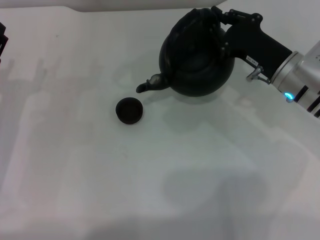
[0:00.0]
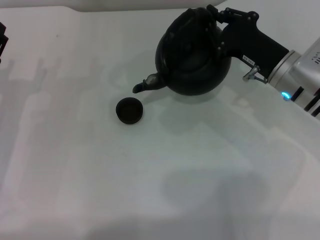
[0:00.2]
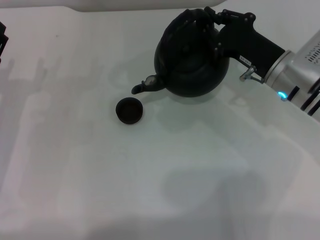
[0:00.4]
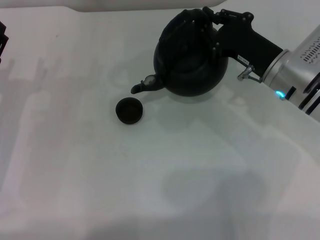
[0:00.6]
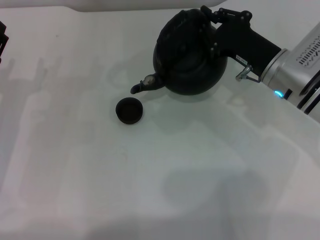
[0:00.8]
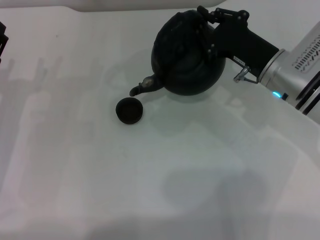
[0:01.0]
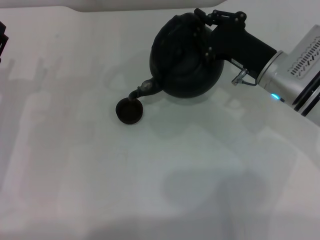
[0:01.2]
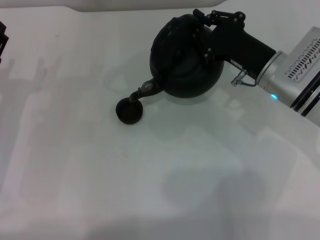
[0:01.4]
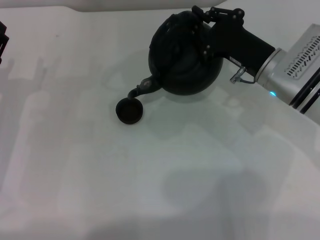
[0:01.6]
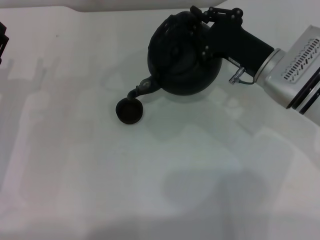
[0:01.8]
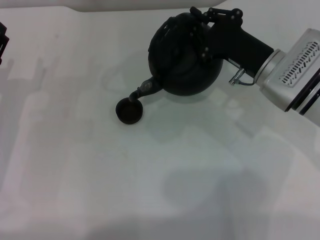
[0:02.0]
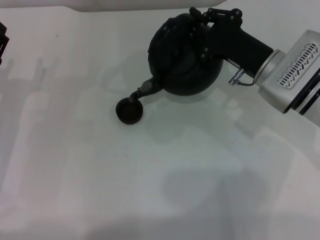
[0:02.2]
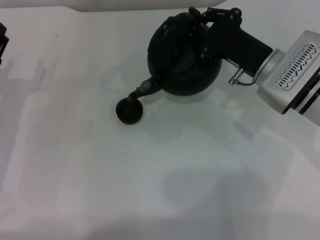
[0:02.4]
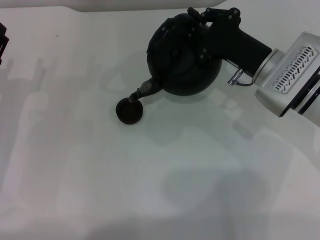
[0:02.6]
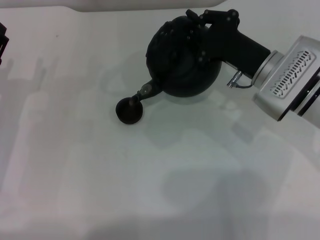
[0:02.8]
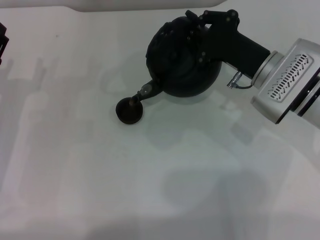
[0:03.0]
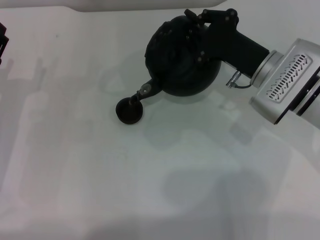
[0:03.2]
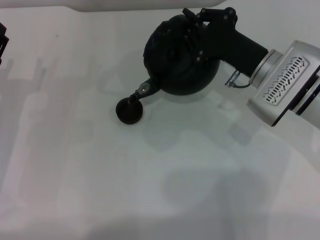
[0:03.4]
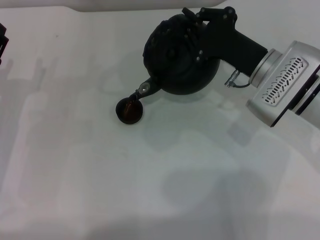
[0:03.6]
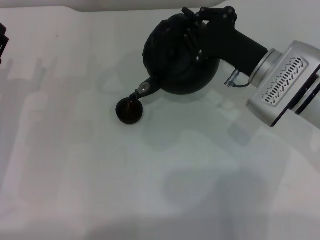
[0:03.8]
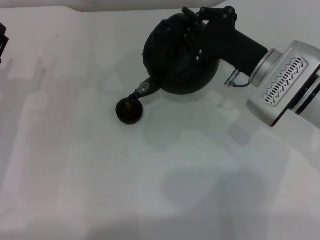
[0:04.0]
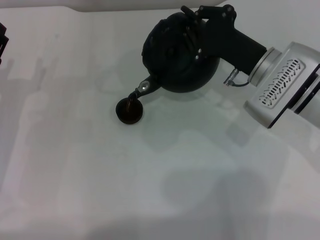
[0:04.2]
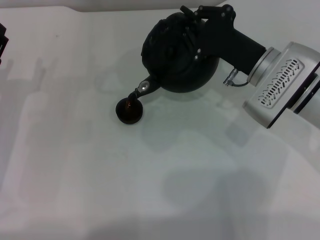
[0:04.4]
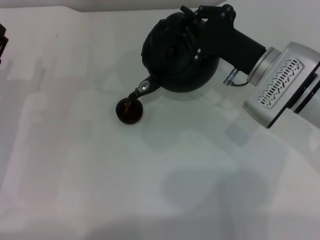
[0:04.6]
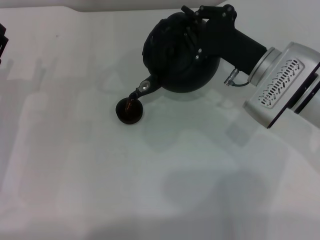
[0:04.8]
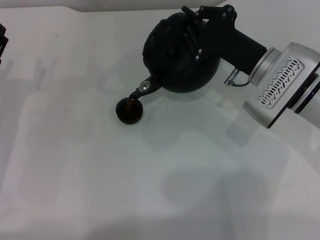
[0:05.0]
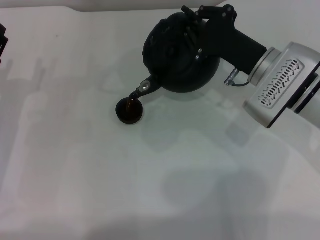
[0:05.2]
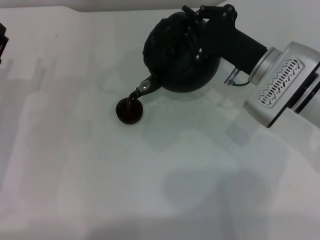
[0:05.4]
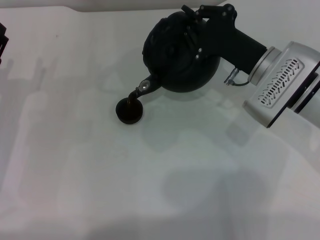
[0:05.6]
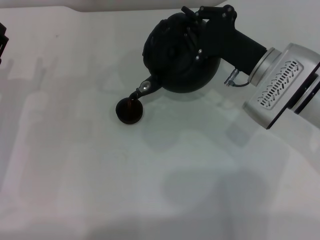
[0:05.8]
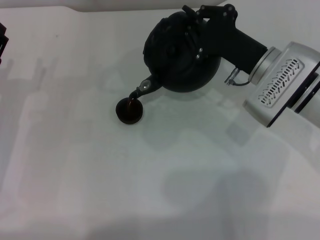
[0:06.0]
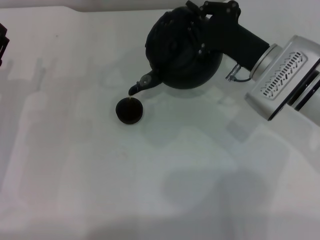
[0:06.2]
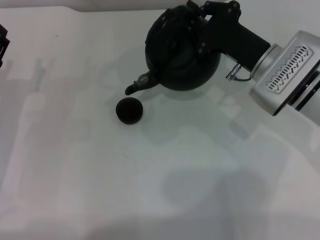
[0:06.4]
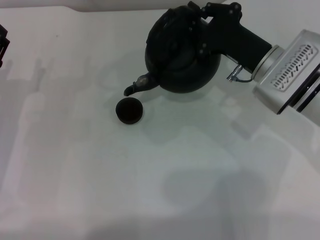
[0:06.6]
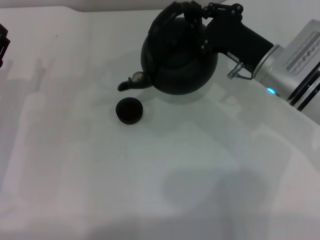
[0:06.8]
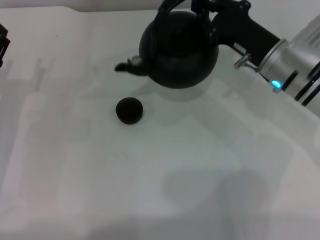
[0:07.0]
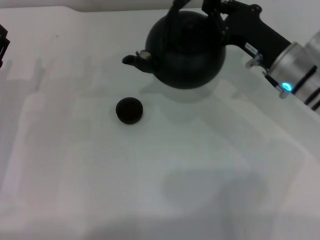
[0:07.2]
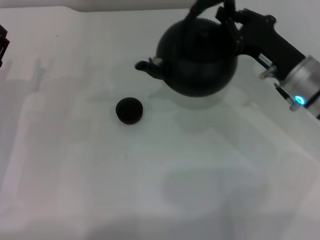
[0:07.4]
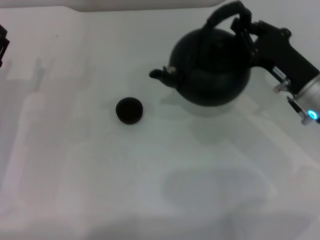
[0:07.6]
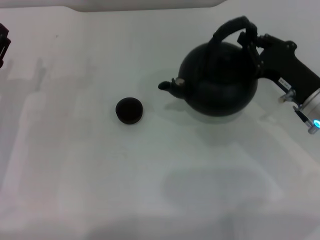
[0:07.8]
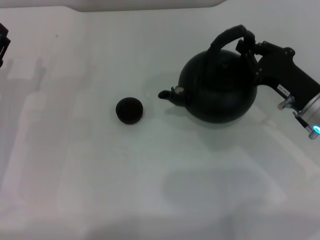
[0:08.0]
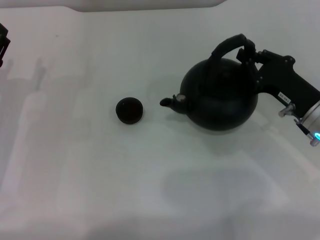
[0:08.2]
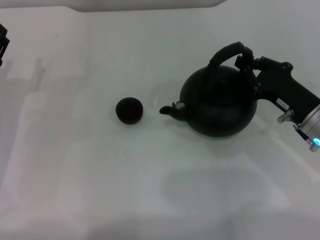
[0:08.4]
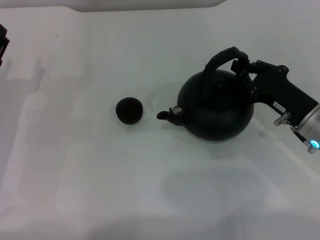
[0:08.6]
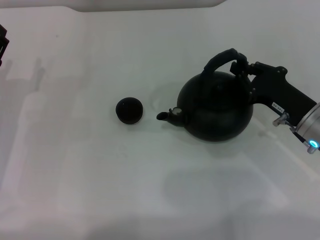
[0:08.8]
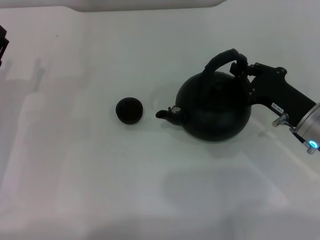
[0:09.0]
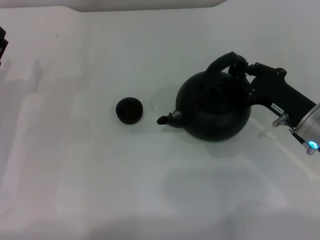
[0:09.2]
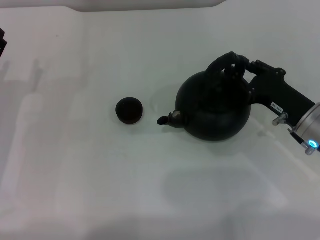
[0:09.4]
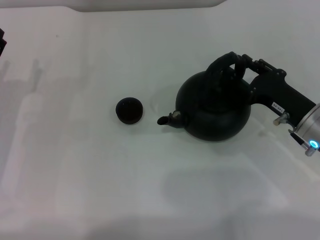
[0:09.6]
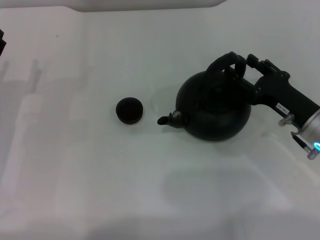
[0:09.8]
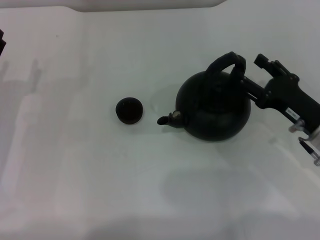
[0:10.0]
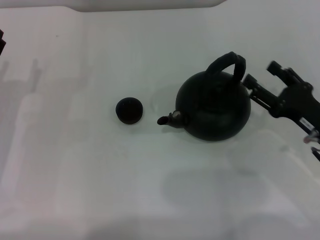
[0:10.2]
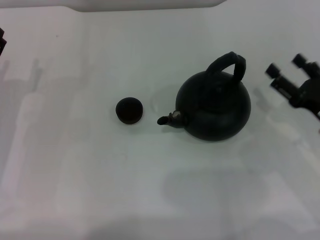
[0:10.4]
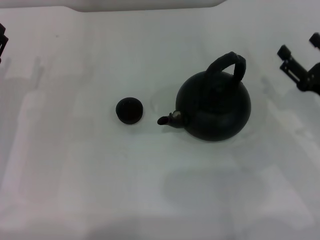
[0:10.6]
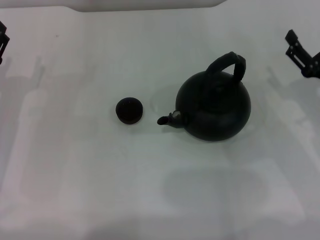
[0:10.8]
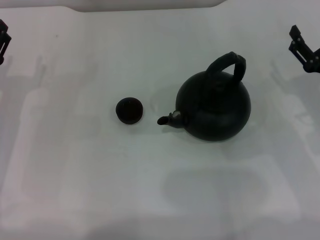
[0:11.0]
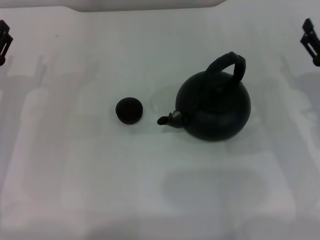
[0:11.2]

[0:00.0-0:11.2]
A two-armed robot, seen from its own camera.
Task of the whole recording: Grasp the handle of the teapot with one hand and pour tea into the teacup.
Step, 0:00.0 to 0:06.6: Pour tea into the teacup with the right gripper.
Step, 0:06.8 to 0:10.4: Put down the teapot with the right gripper.
0:00.0 to 0:01.6: The grippers move only a little.
0:01.6 to 0:04.8: The grippers stay close to where they were, moving slightly.
0:04.8 to 0:06.4: The grippers move only a little.
0:06.4 to 0:08.0: The right gripper travels to the right and backward by approximately 10 cm.
0:08.0 to 0:09.6: The grippers stay close to where they were, moving slightly.
0:09.6 to 0:11.2: The right gripper shifts by approximately 5 cm, and opens up.

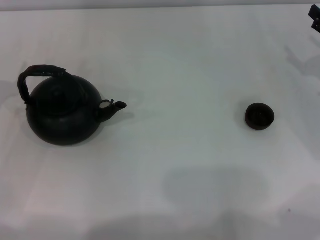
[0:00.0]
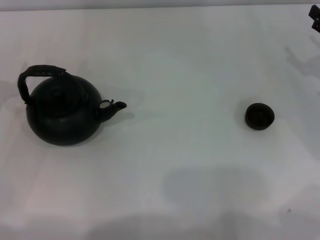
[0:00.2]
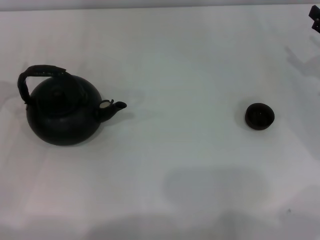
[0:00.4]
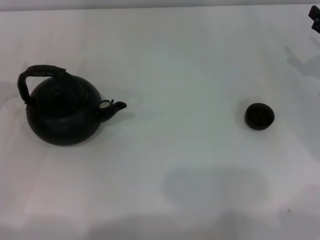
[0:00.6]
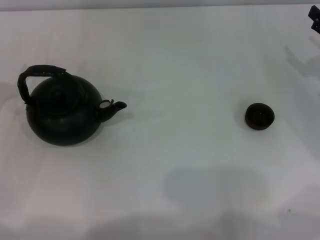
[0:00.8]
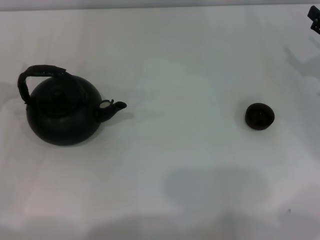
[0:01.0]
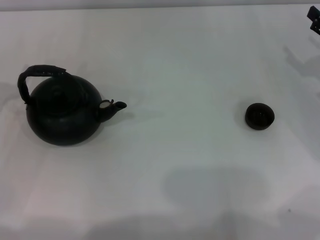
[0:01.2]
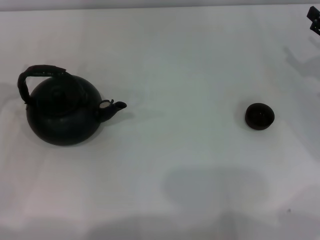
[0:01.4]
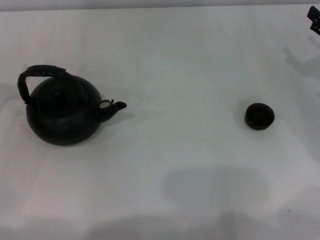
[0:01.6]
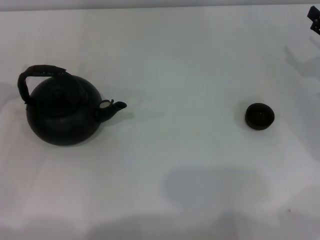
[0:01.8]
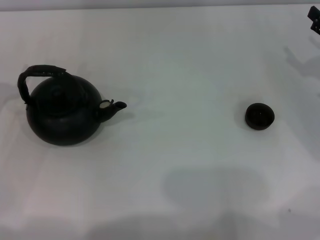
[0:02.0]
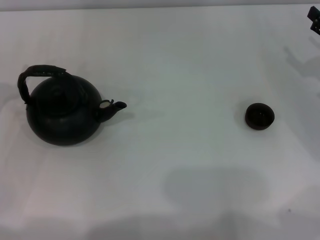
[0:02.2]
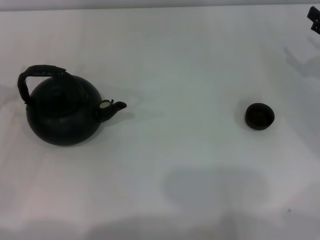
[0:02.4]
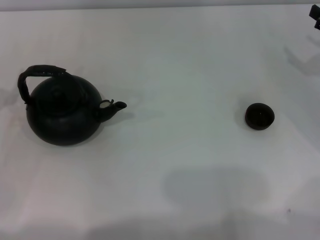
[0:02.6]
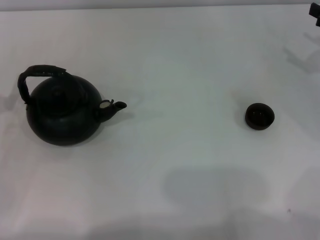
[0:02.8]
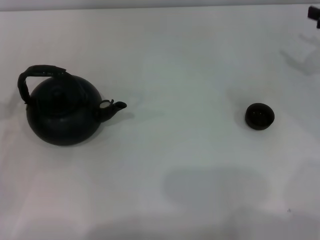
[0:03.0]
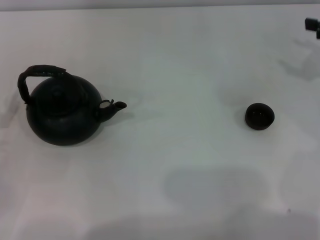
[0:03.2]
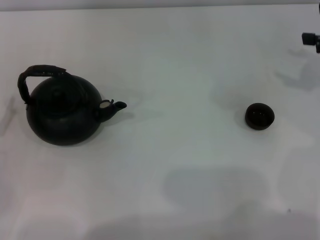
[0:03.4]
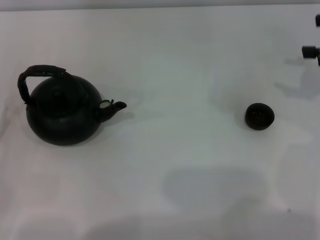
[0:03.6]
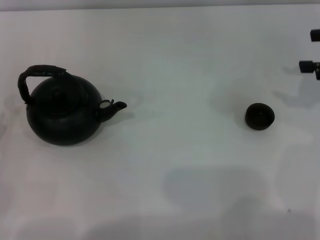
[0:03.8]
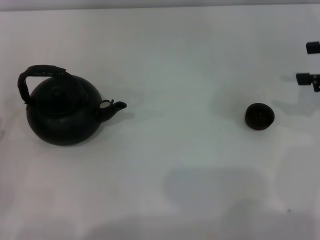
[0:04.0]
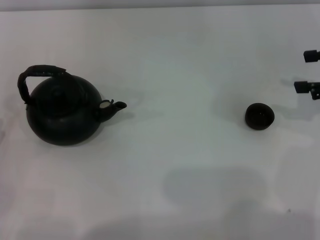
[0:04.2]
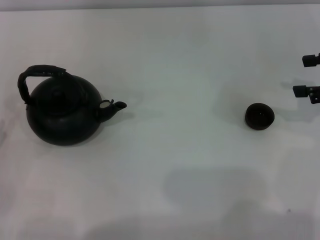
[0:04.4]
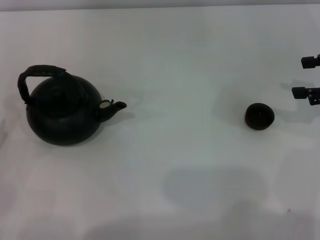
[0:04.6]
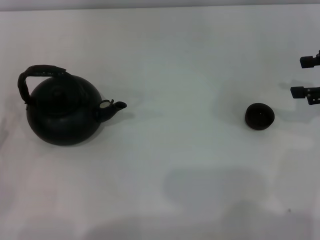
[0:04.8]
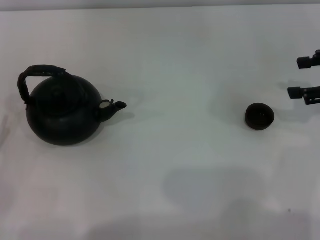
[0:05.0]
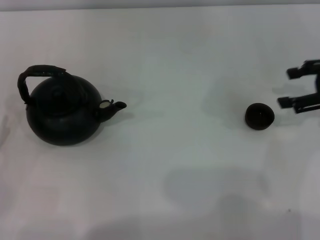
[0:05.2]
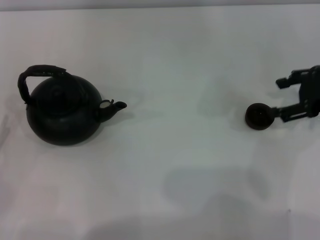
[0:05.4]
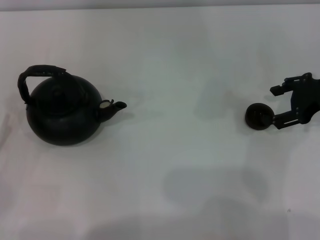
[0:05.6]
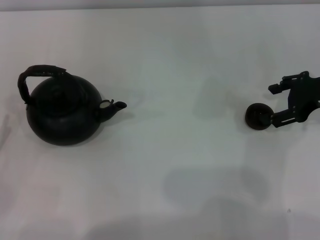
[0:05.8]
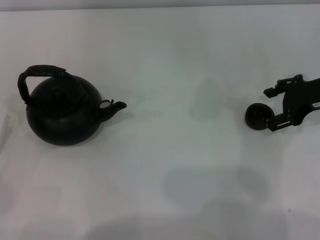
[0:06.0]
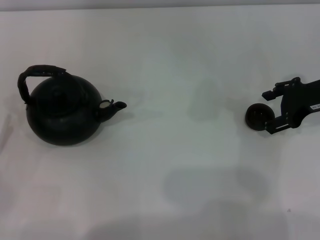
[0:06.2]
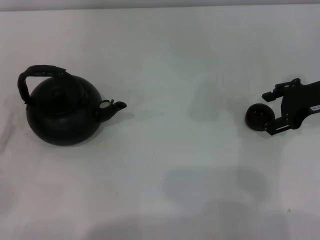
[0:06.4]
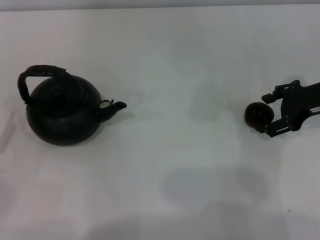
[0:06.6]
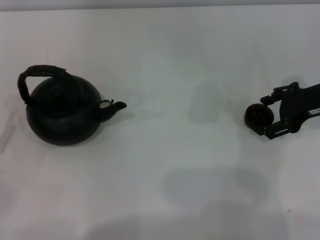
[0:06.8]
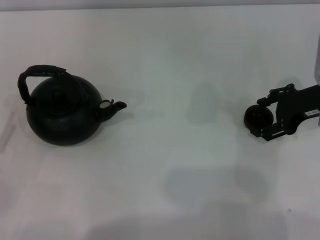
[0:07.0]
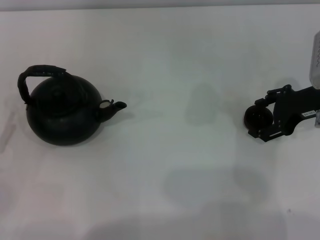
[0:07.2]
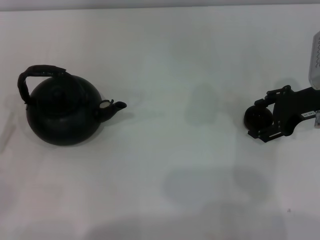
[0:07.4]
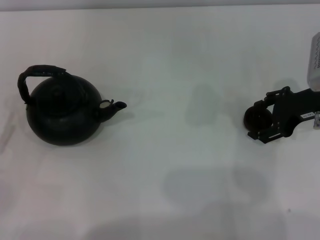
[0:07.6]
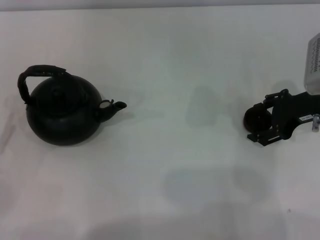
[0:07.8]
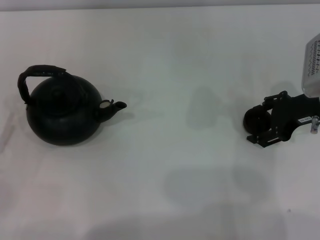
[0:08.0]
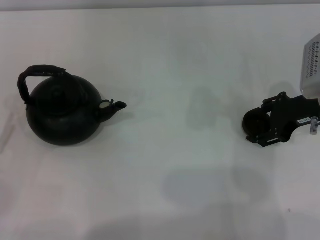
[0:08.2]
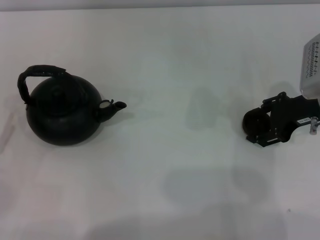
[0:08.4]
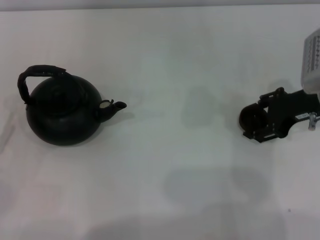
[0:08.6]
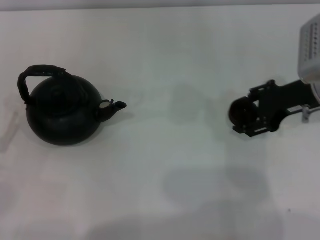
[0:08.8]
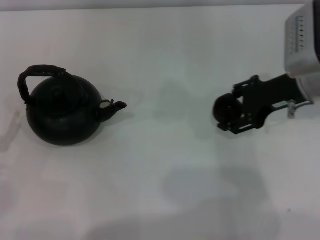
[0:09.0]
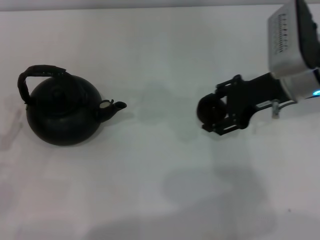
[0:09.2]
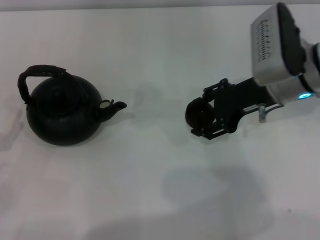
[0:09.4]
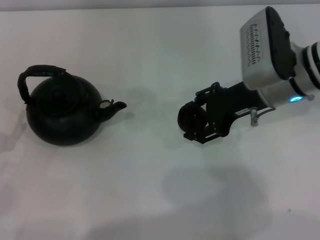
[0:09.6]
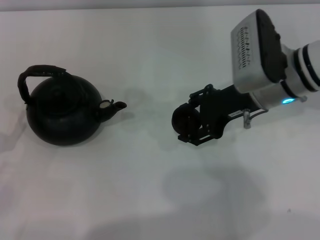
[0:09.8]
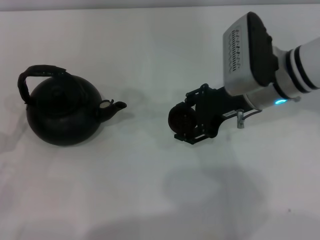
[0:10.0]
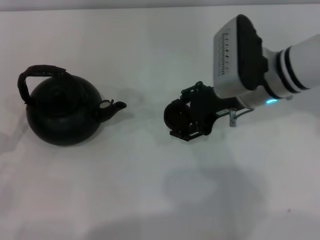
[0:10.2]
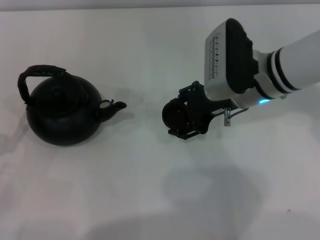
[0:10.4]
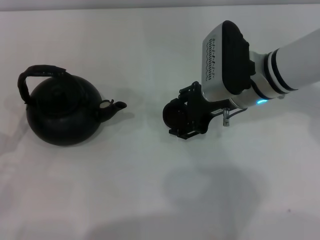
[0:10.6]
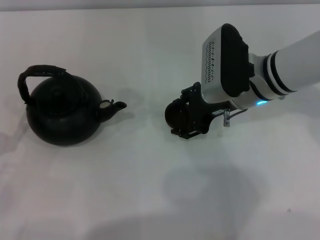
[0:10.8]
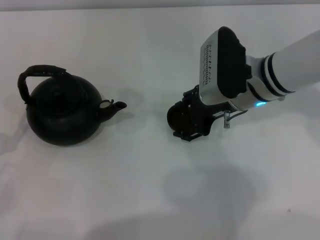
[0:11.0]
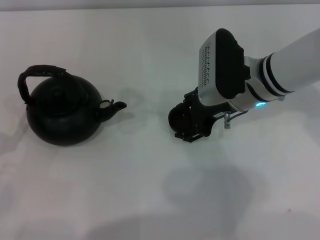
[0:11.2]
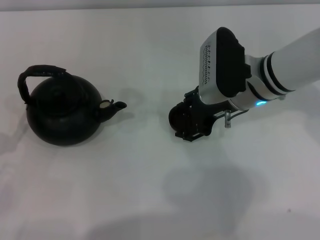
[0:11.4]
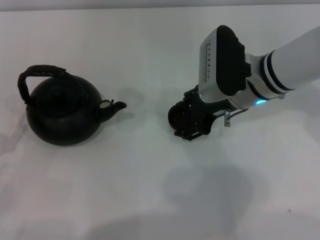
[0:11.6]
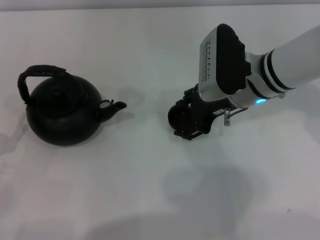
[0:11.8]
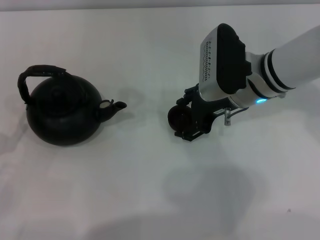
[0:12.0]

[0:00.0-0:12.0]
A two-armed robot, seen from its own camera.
Task of the whole recording: Grasp the handle of the teapot with one hand and pour tea into the teacup.
Step, 0:00.0 to 0:08.6: Pick up the teacup with the right gripper.
0:00.0 to 0:01.6: Both grippers stay put.
0:04.4 to 0:06.0: The right gripper shifts about 5 cm to the left.
0:06.0 to 0:07.6: The grippers move only a little.
0:07.6 to 0:09.0: The right gripper shifts by approximately 5 cm, and closes its fingers.
0:09.0 to 0:10.4: The right gripper shifts some 10 cm to the left.
0:10.4 to 0:12.0: The grippers make only small movements.
